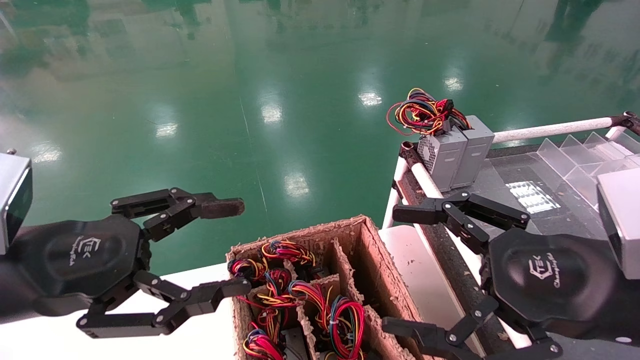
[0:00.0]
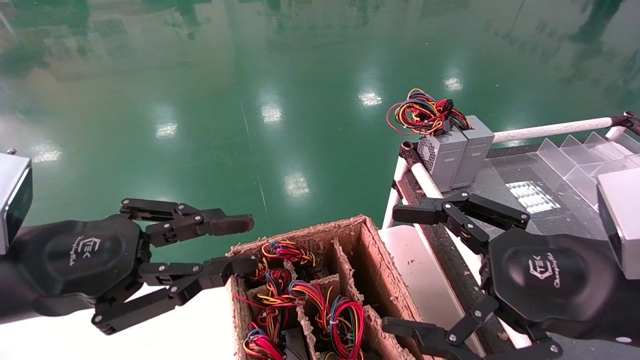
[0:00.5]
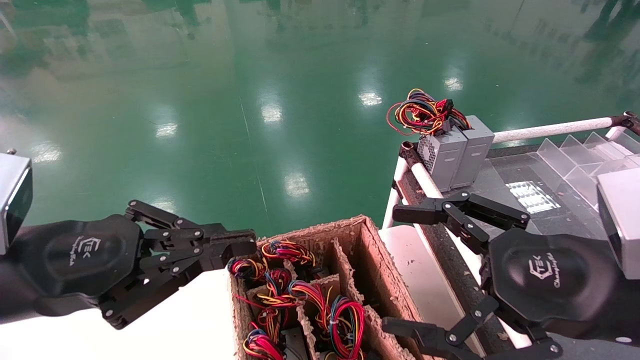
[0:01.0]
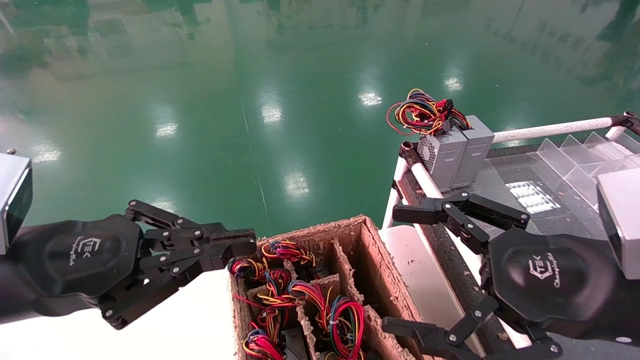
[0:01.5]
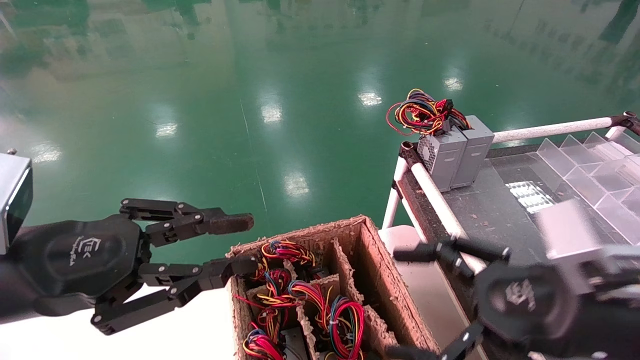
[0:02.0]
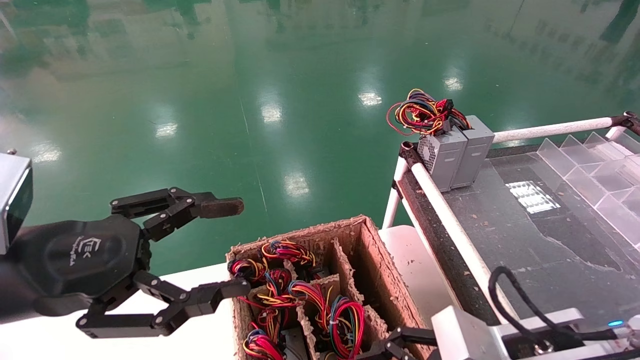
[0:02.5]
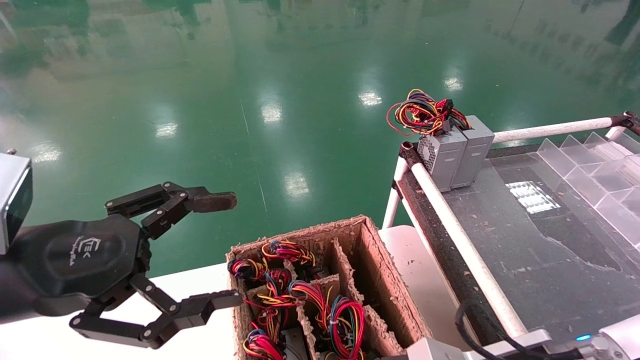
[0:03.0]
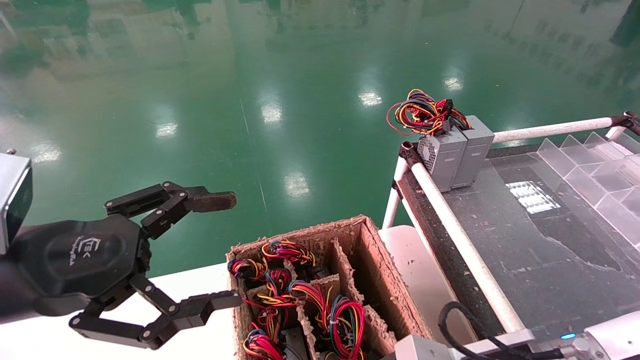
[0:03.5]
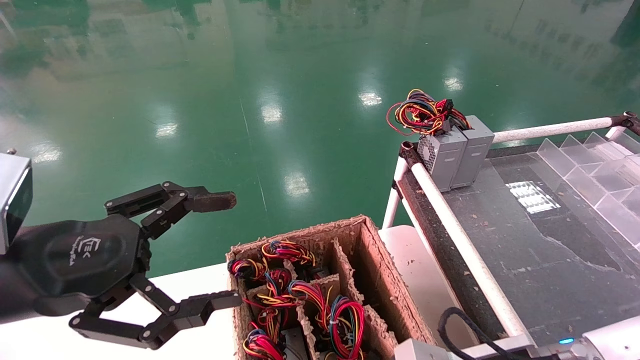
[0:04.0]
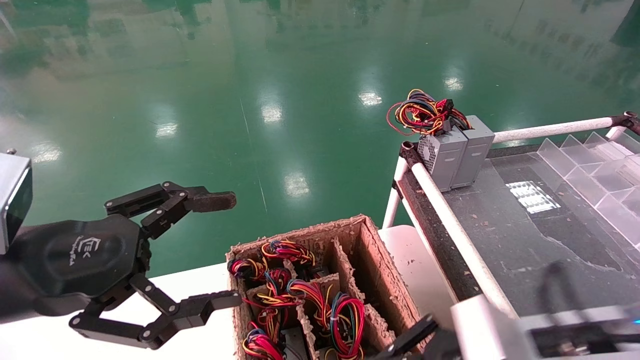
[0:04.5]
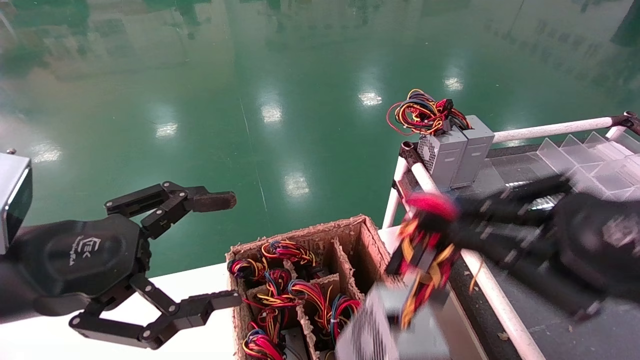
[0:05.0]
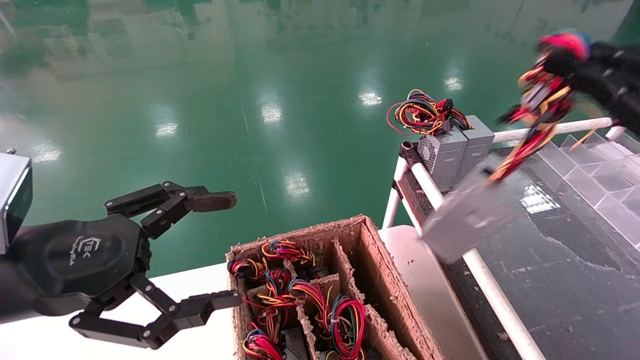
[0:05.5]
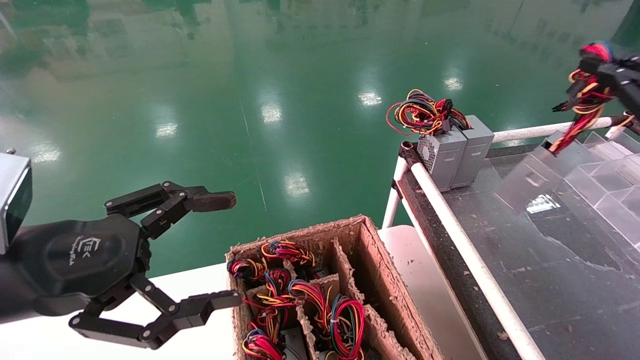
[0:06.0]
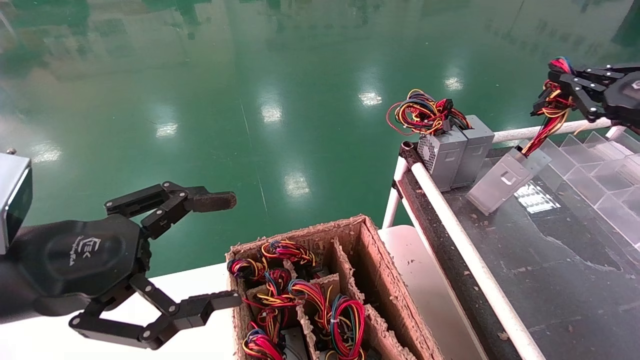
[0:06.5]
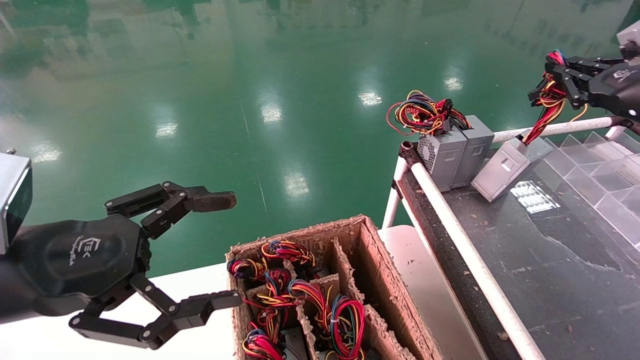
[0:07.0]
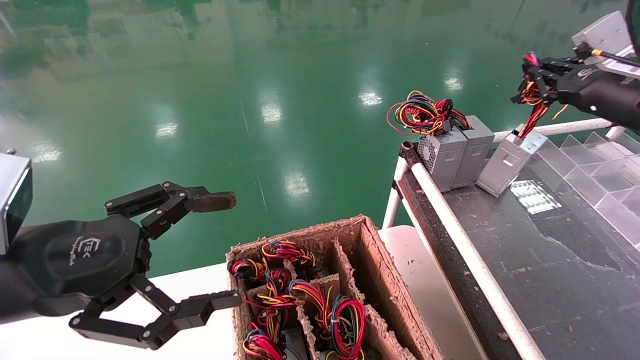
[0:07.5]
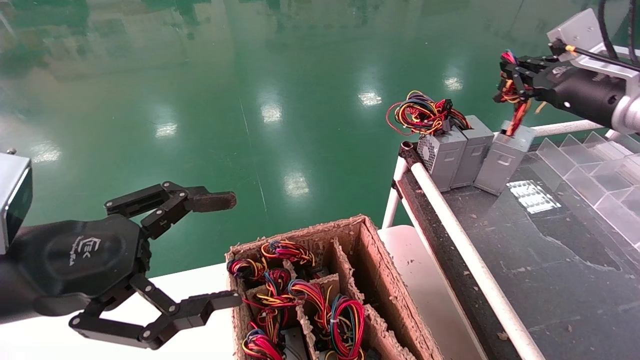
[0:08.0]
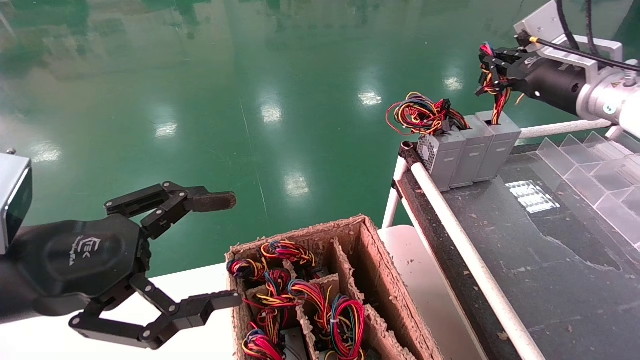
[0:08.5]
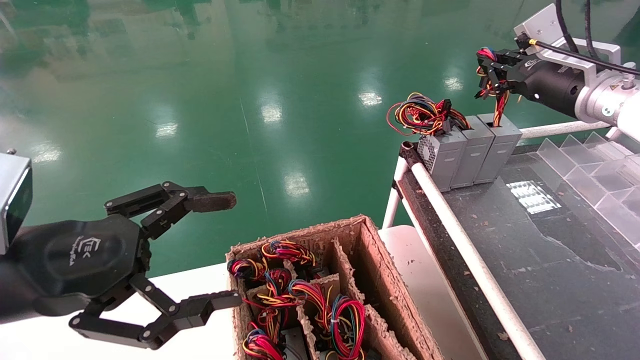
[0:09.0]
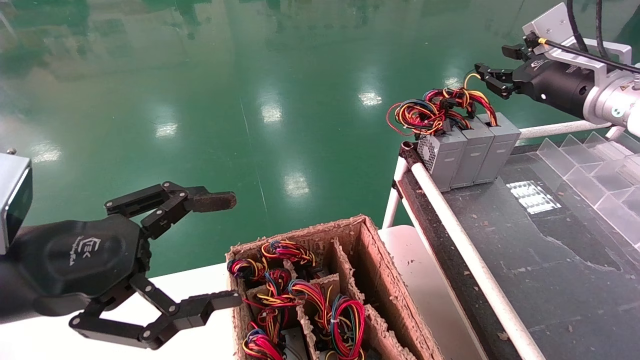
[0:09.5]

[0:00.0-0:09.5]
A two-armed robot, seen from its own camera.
Step, 0:01.5 to 0:04.0: Grab and lift the power supply from the large box.
Step, 0:04.5 to 0:09.0: Place the power supply on the operating table.
0:00.0 to 0:02.0: The left gripper closes its fingers.
0:02.0 to 0:04.0: The right gripper heads downward and to the left, covering some 10 cm, and closes its fingers. Meanwhile the left gripper opens up.
0:04.0 to 0:05.5: The right gripper heads upward and to the right, covering approximately 30 cm.
0:05.5 to 0:07.5: The right gripper travels forward by about 20 cm.
0:07.5 to 0:09.5: The right gripper travels to the left by about 5 cm.

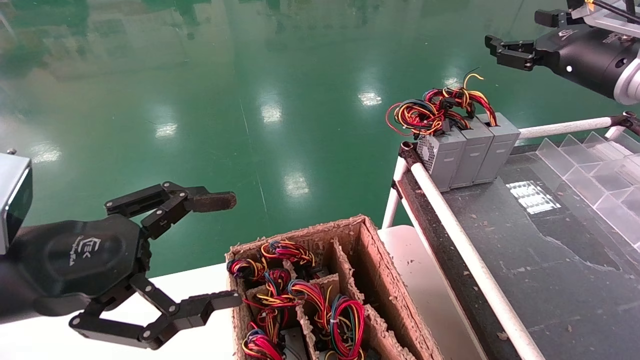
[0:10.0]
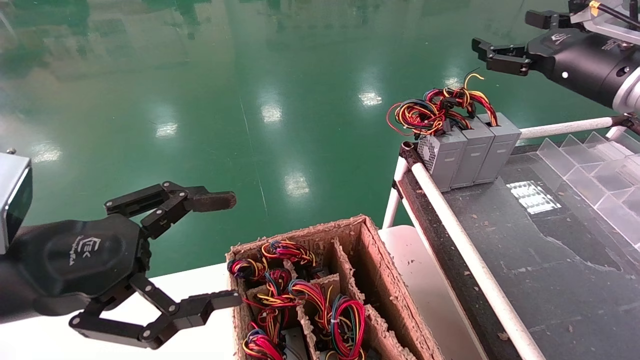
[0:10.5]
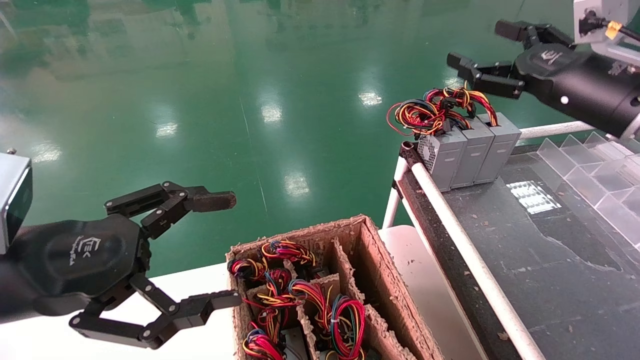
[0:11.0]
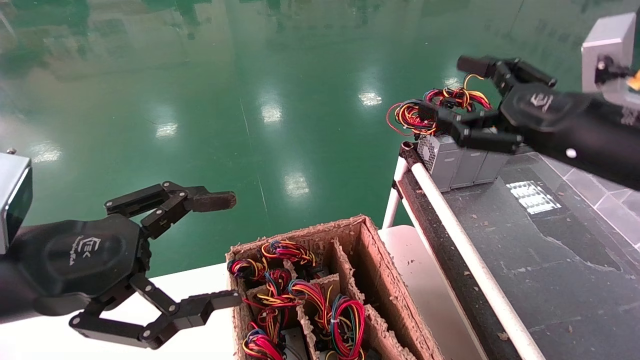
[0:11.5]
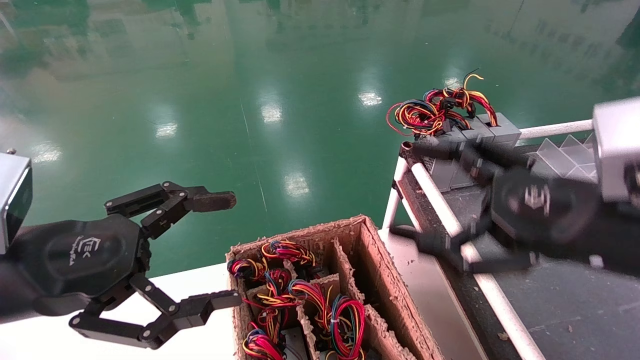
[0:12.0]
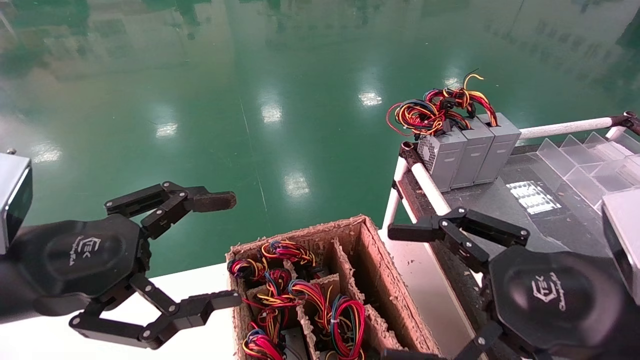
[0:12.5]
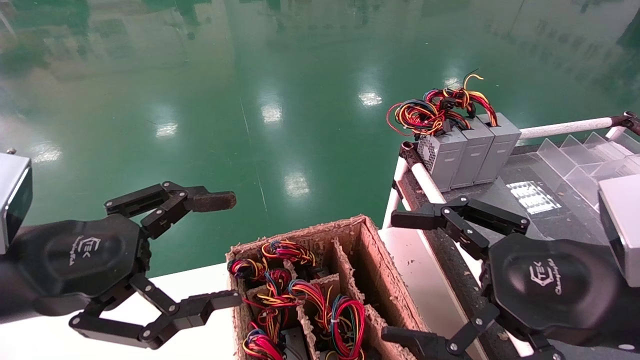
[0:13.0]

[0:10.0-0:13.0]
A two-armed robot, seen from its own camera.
0:10.0 to 0:11.5: The right gripper heads backward, downward and to the left, covering approximately 15 cm.
0:11.5 to 0:13.0: The right gripper goes approximately 15 cm backward and downward.
